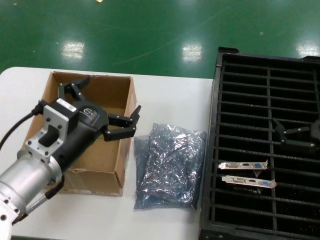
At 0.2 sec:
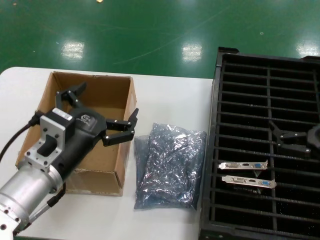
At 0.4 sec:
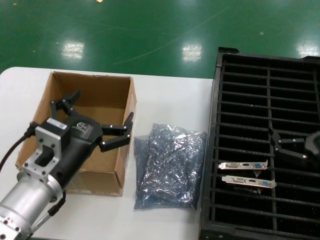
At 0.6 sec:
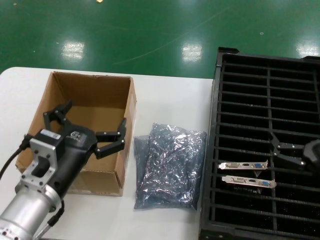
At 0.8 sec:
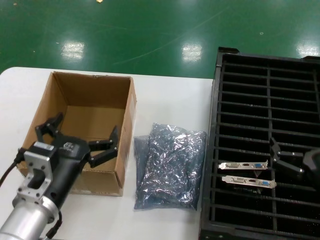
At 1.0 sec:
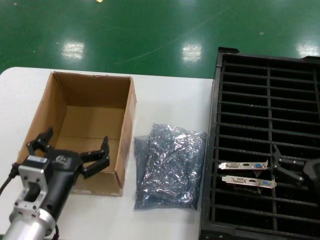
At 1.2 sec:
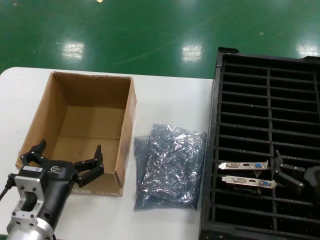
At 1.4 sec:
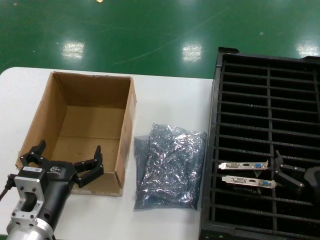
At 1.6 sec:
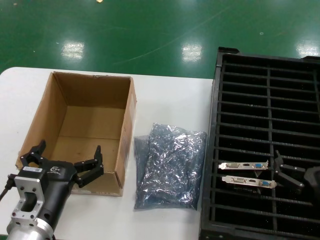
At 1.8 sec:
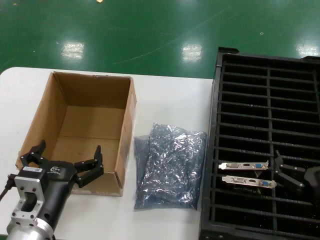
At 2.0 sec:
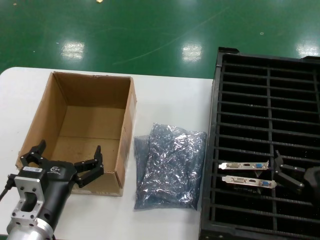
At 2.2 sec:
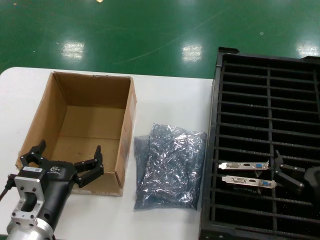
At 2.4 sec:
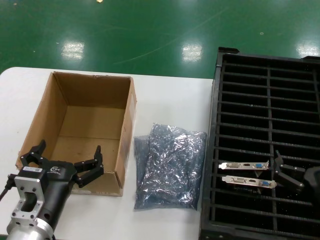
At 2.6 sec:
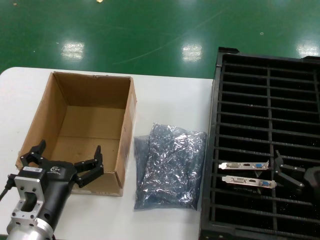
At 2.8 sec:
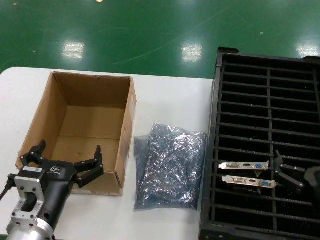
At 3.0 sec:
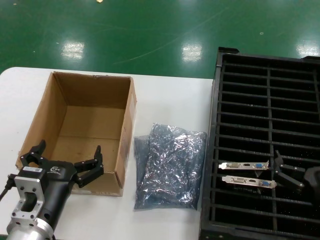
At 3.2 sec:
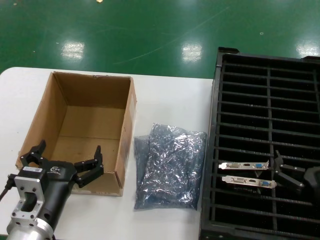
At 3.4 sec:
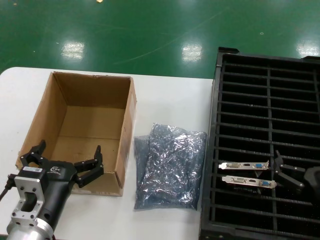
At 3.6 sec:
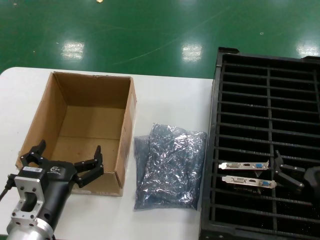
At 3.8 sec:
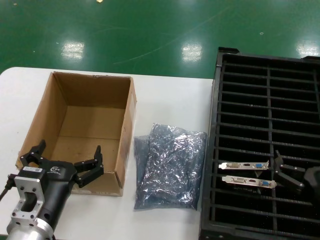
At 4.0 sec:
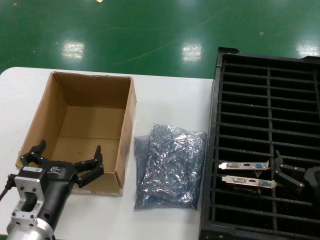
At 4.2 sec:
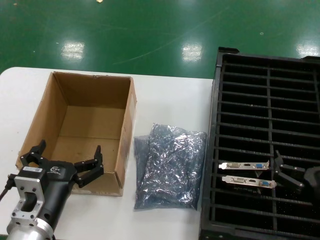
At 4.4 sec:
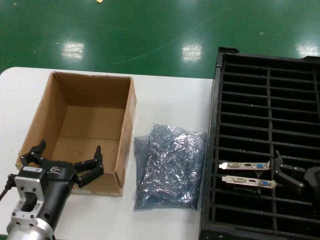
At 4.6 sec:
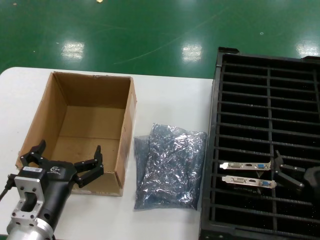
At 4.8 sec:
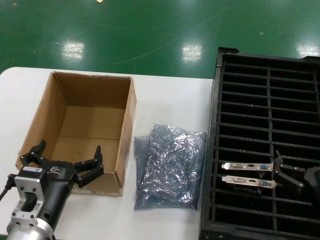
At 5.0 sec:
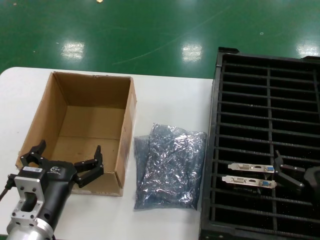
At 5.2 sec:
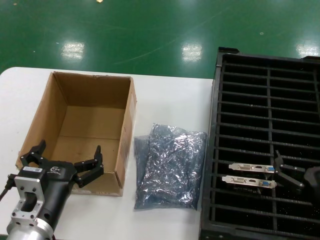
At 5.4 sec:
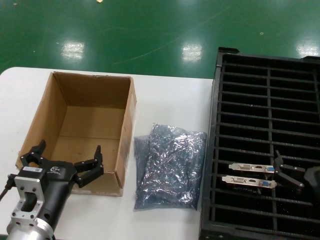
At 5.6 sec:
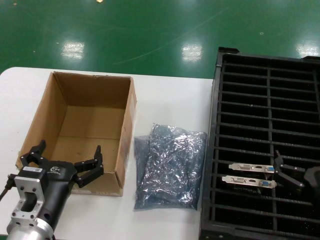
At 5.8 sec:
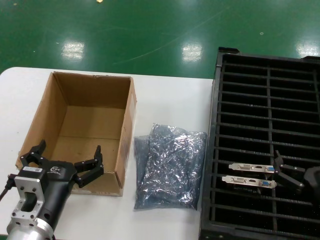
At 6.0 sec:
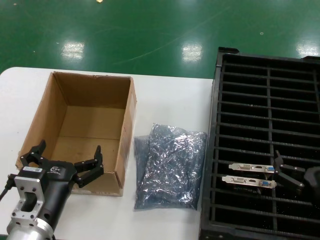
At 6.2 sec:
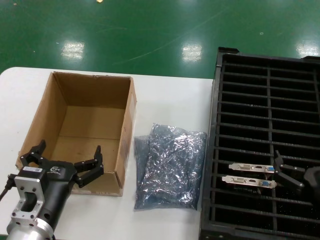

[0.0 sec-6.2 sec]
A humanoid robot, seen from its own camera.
Task of the whole recording: take out graphics card from box remove packaging put into black container.
0.0 sec to 1.6 sec: The left hand shifts some 10 cm downward; the right hand goes some 15 cm downward, to the left and backward.
1.6 sec to 6.2 sec: Both hands stay about where they are.
